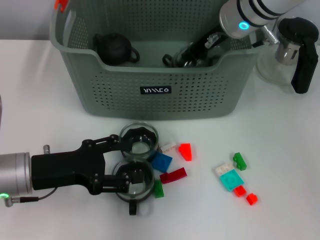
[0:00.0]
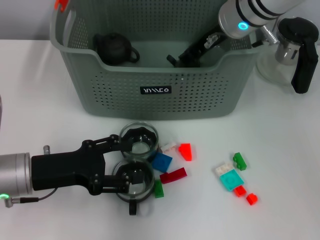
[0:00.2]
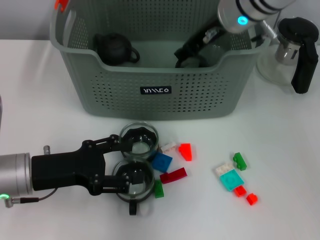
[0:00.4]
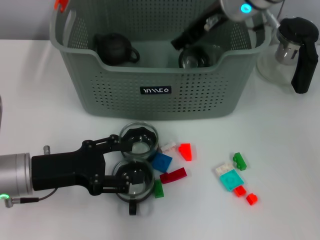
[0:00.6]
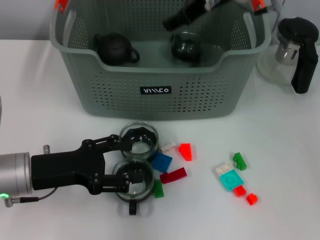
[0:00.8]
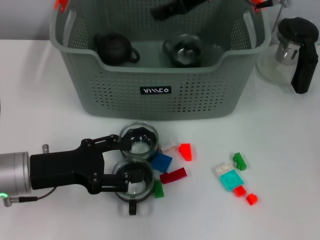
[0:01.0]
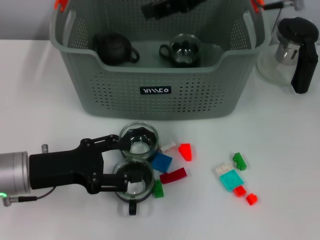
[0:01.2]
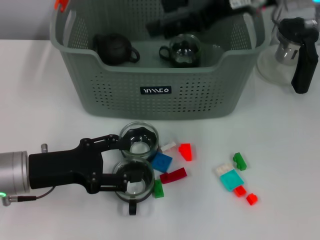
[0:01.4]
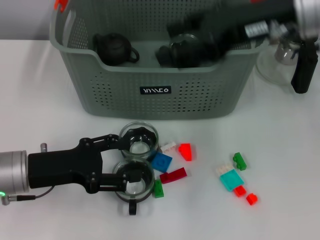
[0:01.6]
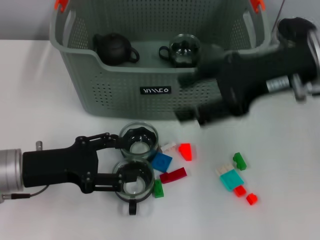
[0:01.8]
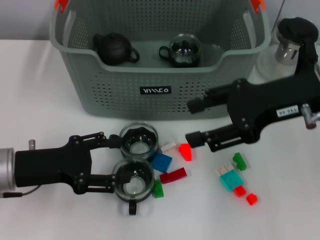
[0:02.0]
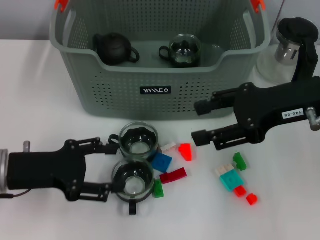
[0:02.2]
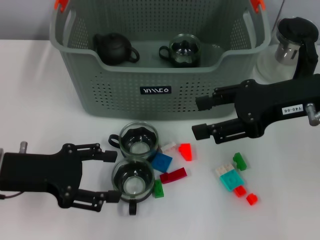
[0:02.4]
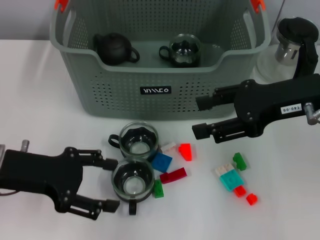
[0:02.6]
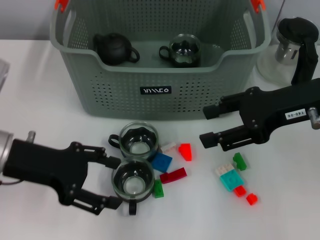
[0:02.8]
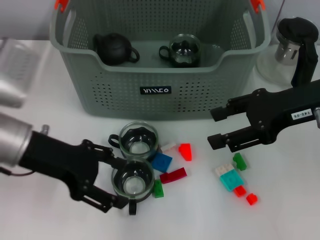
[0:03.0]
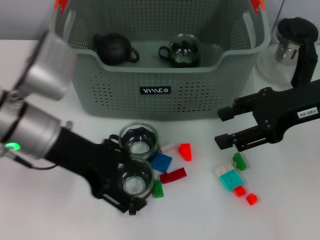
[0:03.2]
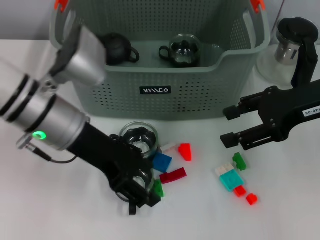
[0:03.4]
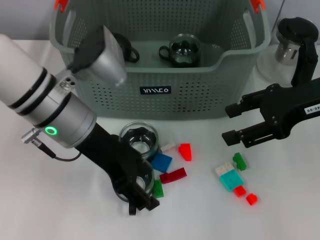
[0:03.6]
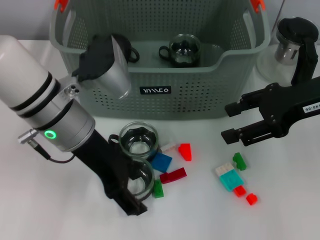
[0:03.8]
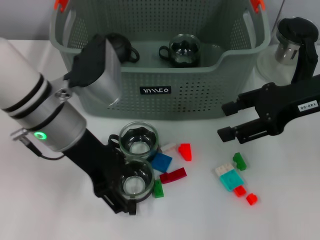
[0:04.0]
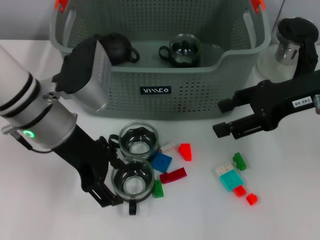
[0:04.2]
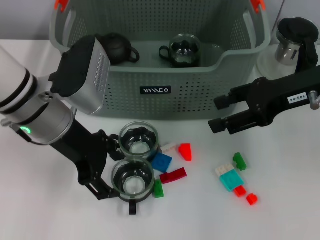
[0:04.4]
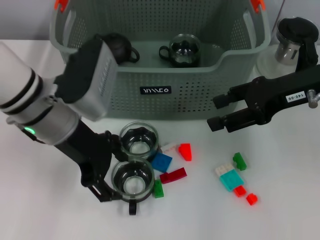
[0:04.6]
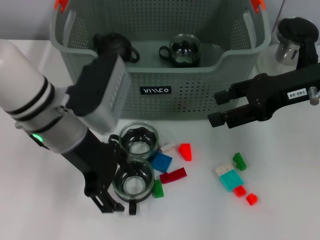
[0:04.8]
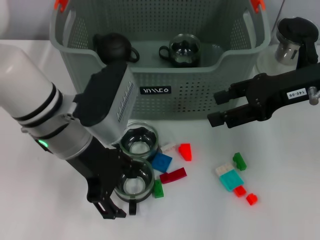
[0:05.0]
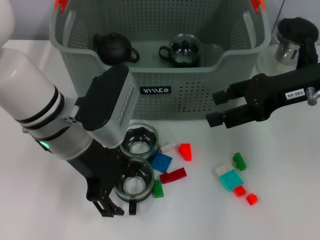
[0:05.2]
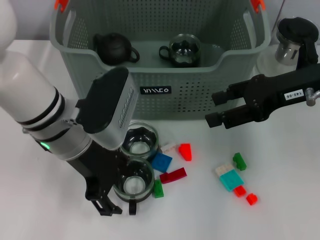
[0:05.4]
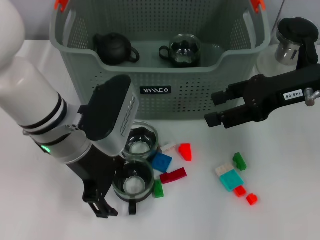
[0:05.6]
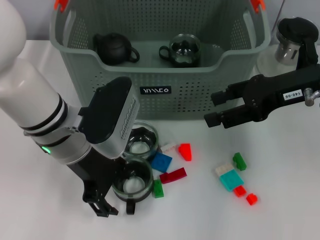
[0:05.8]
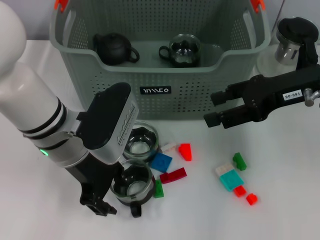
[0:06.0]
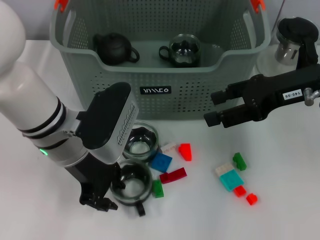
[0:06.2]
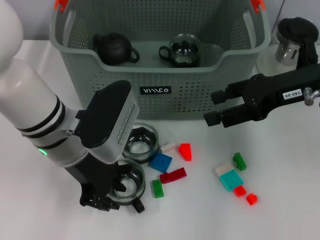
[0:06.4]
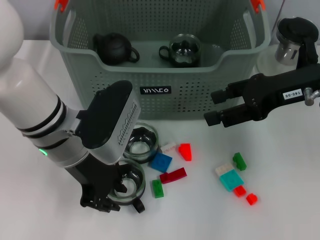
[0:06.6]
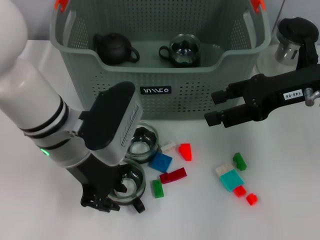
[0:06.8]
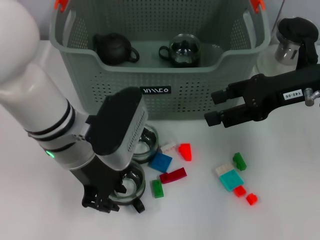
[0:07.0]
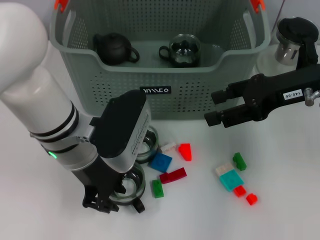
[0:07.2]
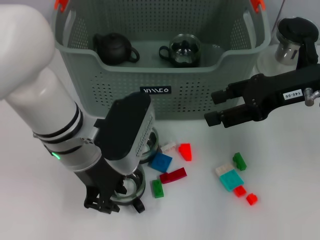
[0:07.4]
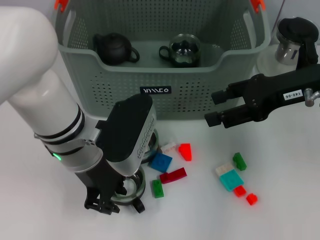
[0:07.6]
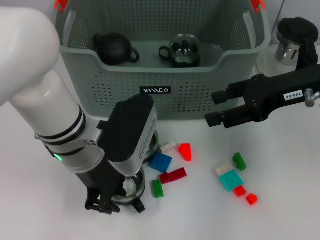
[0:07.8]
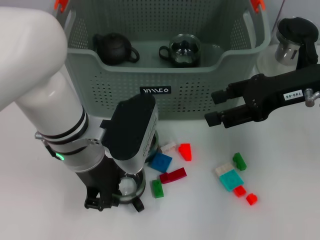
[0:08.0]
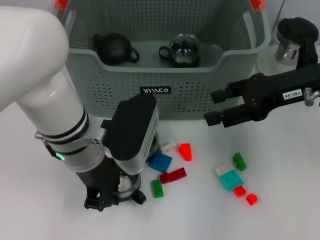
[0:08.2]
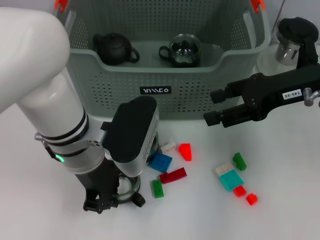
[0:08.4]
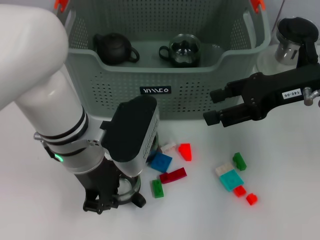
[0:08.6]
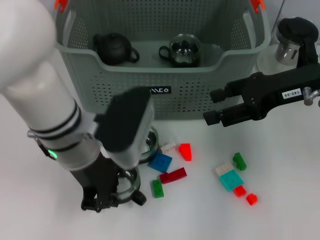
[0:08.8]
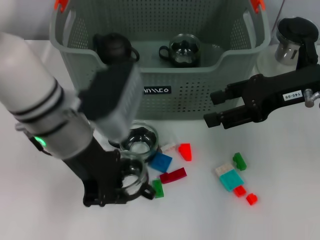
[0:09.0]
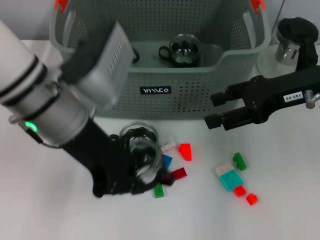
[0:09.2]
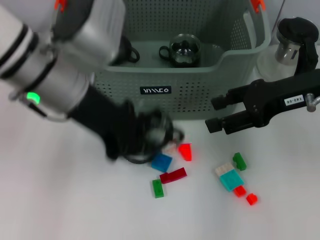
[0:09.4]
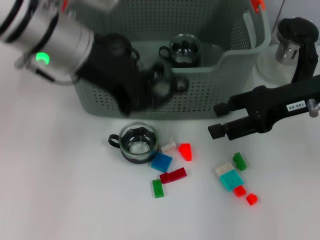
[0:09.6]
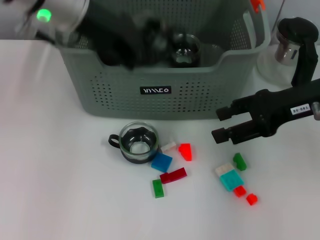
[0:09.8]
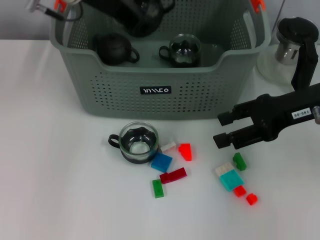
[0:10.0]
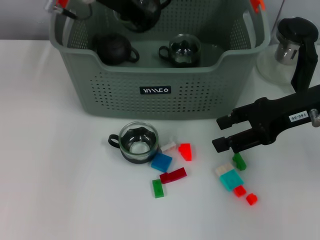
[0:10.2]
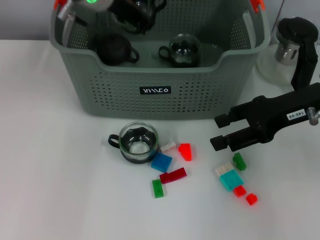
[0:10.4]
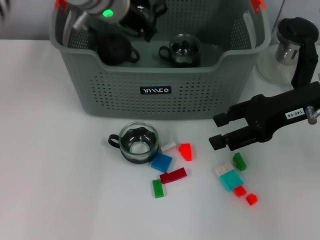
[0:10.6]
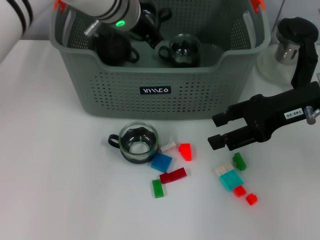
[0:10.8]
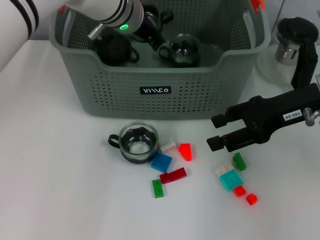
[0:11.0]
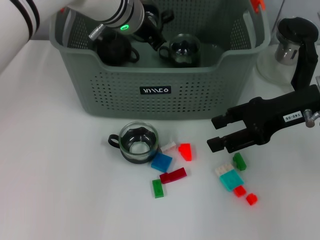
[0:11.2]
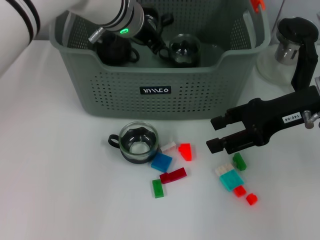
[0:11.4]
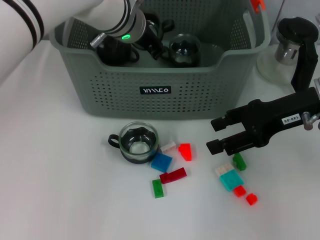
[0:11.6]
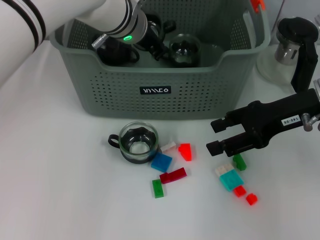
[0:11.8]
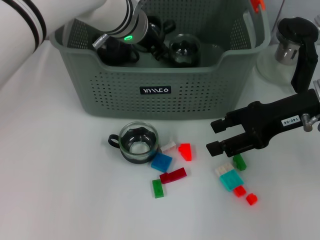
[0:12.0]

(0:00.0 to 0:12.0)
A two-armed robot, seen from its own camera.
Task of the whole recording: pick up the teacup on the table and place it into the storage bin, pick up the block on the table and place it into the storage bin.
Step, 0:01.0 - 0:08.4: Grasp the cup with left gripper.
0:00.0 - 0:01.6: The right gripper moves backward, to the right and upward, roughly 15 cm, and opens.
0:01.6 - 0:03.0: The left gripper moves upward, roughly 10 cm. The right gripper goes some 10 cm downward and to the right.
0:03.0 - 0:04.4: The left gripper goes about 5 cm to the right.
0:06.0 - 0:07.6: The left gripper closes.
0:07.6 - 0:09.0: The grippers stay close to where they were, moving slightly.
0:09.0 - 0:10.4: The left gripper shifts roughly 15 cm forward.
0:10.4 - 0:12.0: The left gripper goes about 5 cm downward.

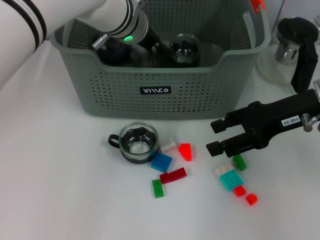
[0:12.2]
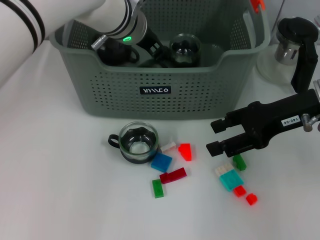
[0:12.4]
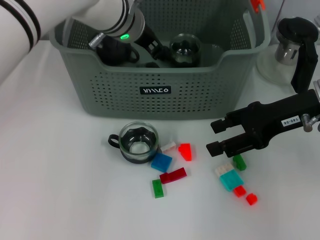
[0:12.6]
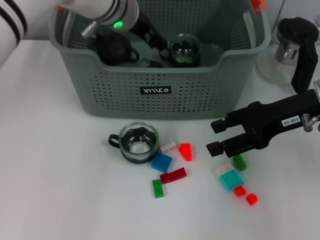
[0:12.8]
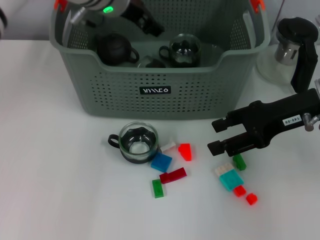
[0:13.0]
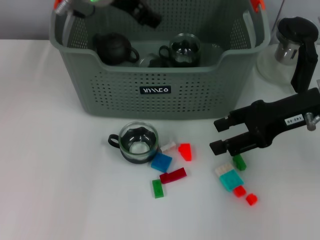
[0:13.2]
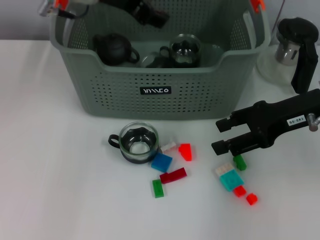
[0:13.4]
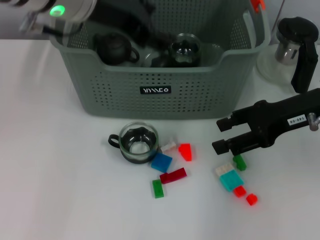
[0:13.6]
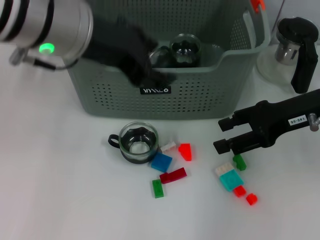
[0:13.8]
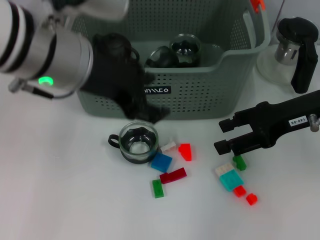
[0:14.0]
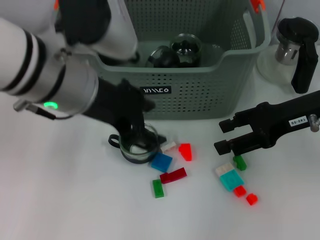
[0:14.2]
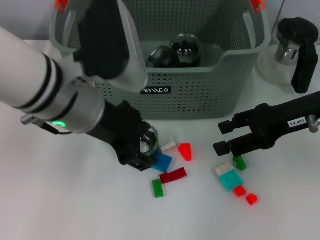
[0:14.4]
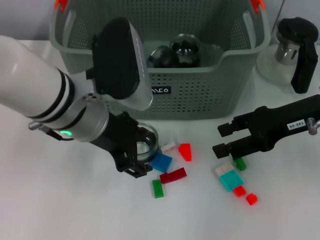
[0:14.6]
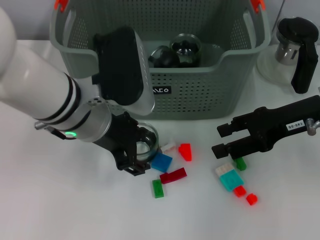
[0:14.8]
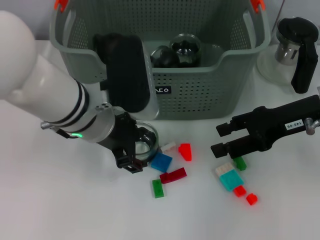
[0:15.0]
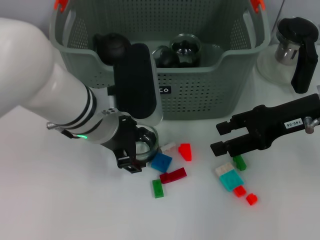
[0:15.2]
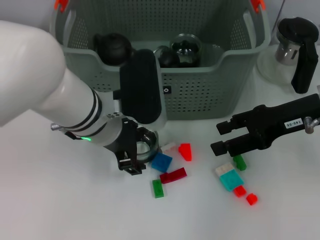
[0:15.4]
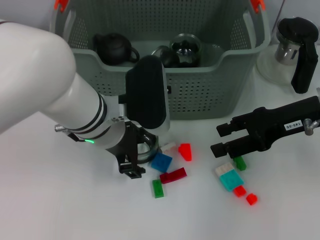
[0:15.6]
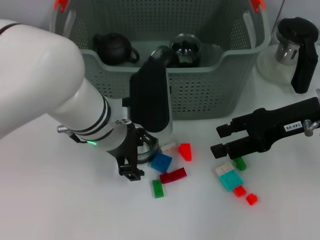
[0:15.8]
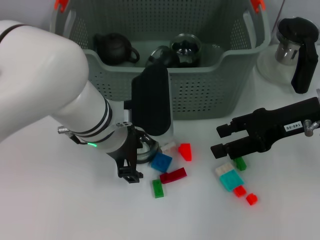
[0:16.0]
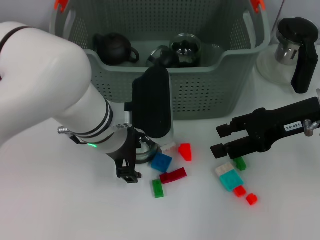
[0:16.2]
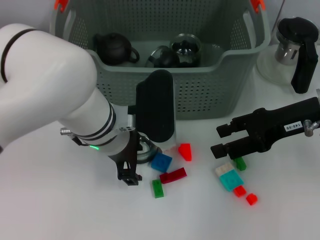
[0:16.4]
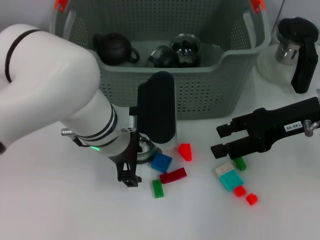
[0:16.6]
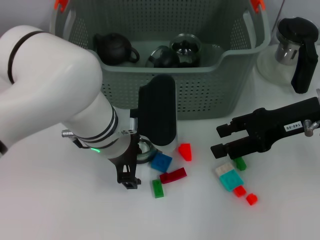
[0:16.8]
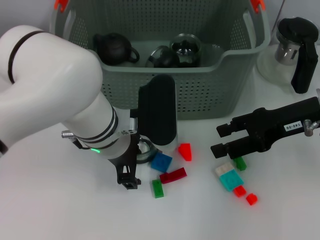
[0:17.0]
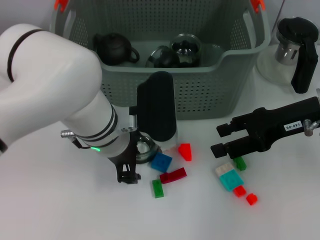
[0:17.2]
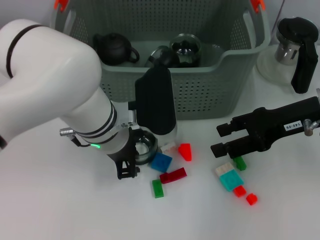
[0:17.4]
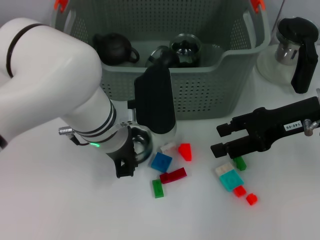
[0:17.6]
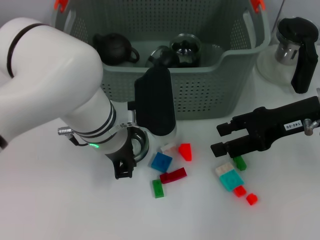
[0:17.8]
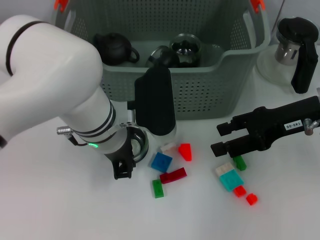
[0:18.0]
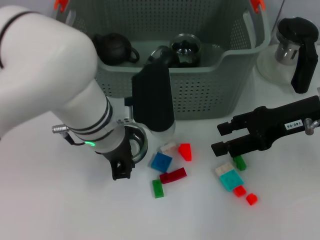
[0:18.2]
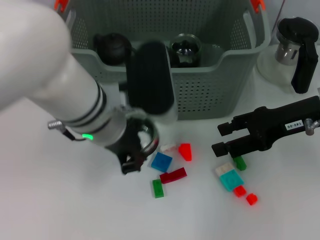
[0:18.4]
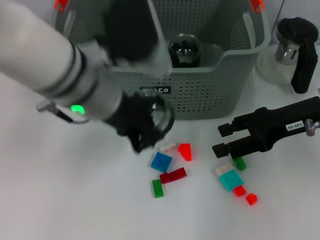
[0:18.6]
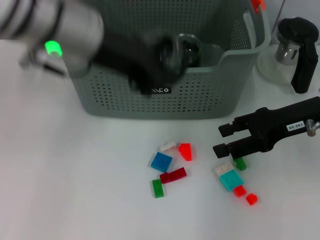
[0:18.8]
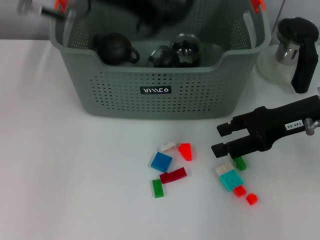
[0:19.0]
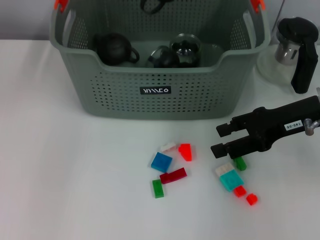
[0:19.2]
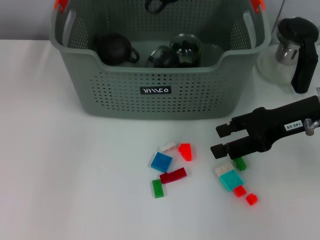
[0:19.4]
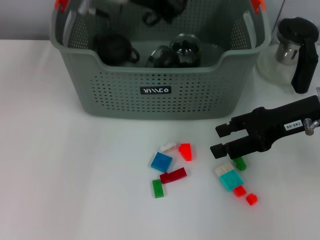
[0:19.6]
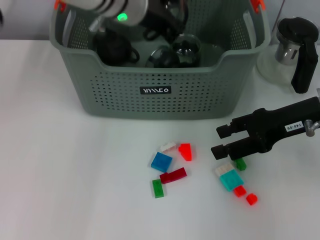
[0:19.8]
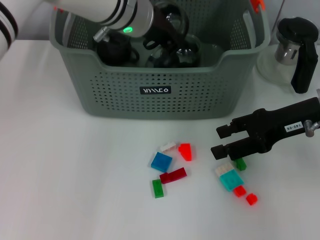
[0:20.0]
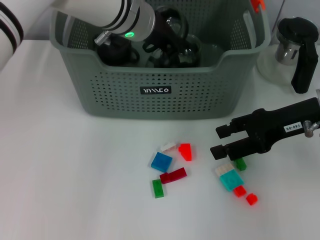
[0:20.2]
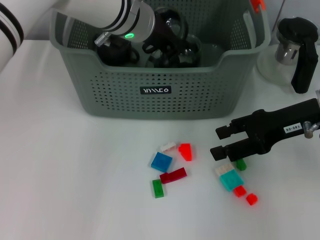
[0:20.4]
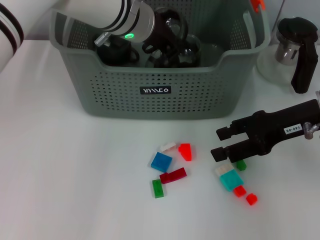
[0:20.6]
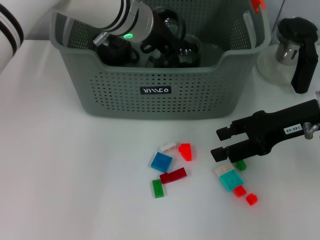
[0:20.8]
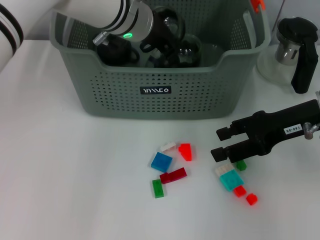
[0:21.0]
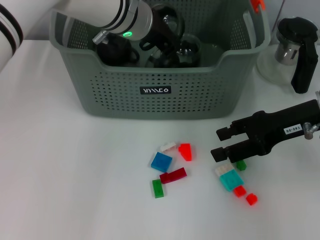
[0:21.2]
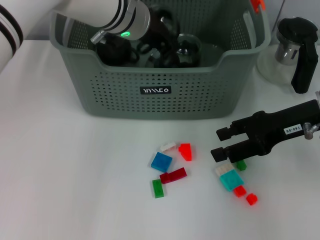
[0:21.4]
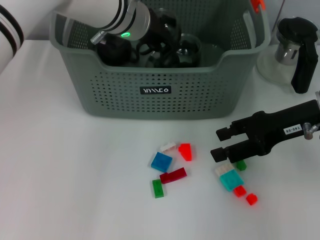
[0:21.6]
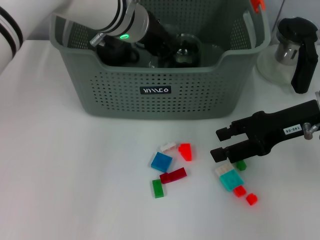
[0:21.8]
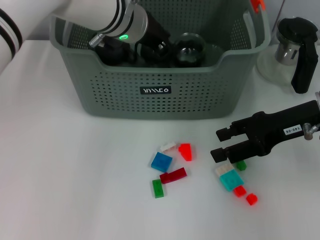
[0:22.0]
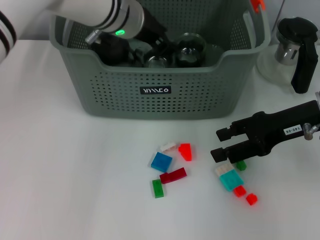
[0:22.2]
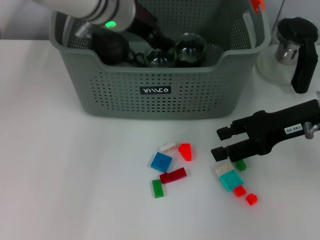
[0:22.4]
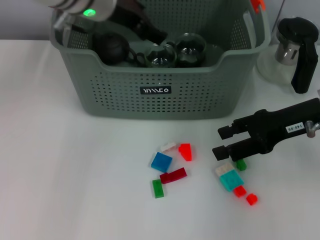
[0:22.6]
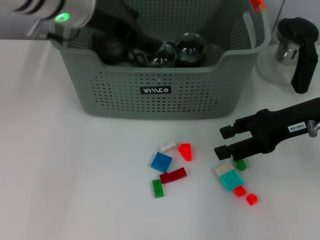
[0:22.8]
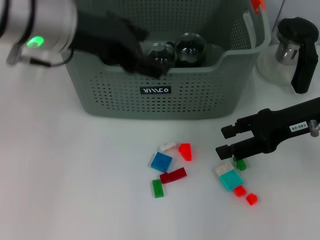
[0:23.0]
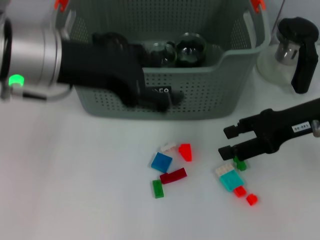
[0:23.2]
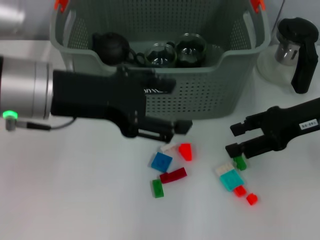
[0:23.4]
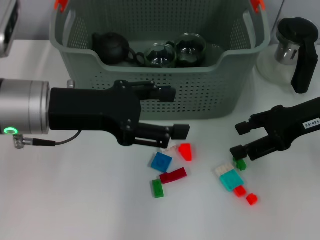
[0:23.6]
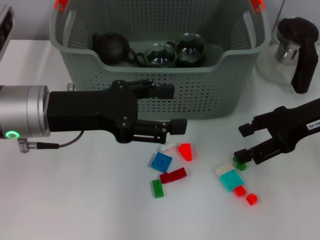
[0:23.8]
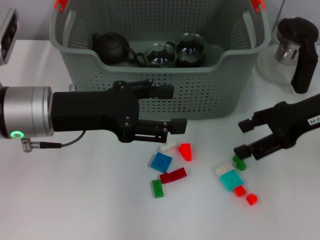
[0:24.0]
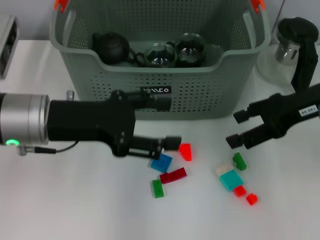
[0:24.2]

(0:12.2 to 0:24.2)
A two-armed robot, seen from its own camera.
Task of the whole recording: pick up the teacup on the table and place it into the storage bin, pick up the block on the table and place it into the storage bin.
Step, 0:13.0 - 0:17.6: Grasp the cup with left gripper.
Step, 0:17.8 - 0:22.6: Place the cup in the storage box with left gripper.
0:12.2 - 0:13.8: The left gripper is displaced backward, upward and to the left by approximately 20 cm, and opens its fingers.
0:13.8 - 0:15.2: The left gripper goes about 15 cm downward.
0:15.2 - 0:16.6: There are only small adjustments of the grippers.
0:16.6 - 0:18.2: The left gripper closes.
0:18.2 - 0:19.8: The left gripper heads forward and upward, covering about 15 cm.
0:19.8 - 0:21.2: The grippers move only a little.
0:21.2 - 0:22.6: The left gripper moves approximately 5 cm, and opens up.
0:22.6 - 0:24.2: The left gripper travels backward, downward and to the left by some 15 cm.
